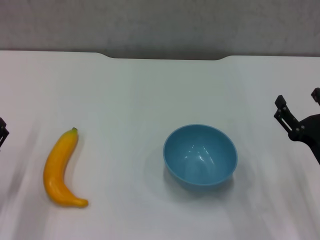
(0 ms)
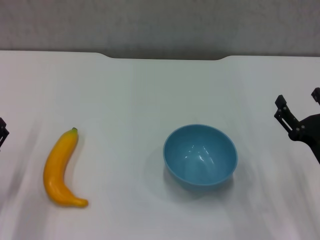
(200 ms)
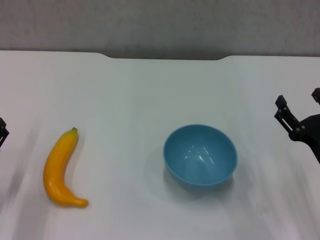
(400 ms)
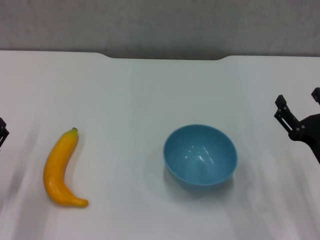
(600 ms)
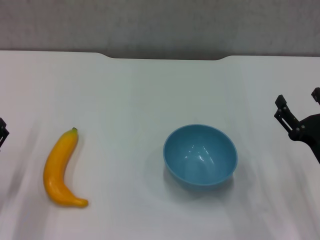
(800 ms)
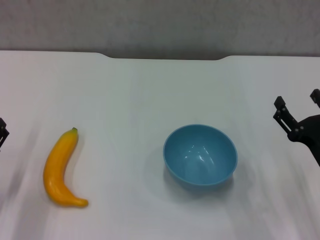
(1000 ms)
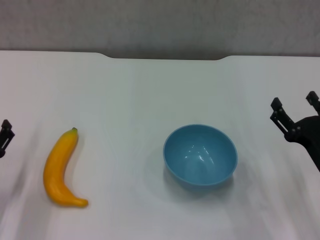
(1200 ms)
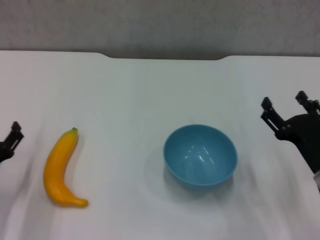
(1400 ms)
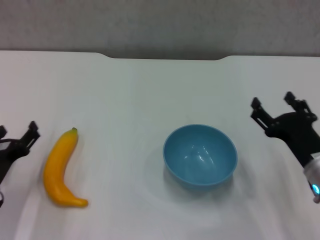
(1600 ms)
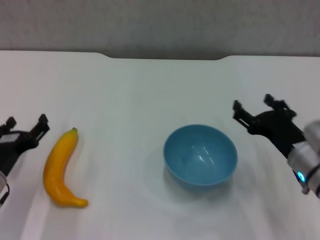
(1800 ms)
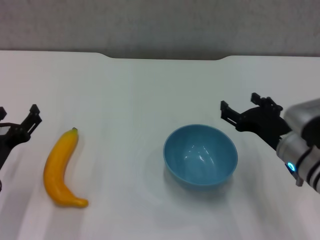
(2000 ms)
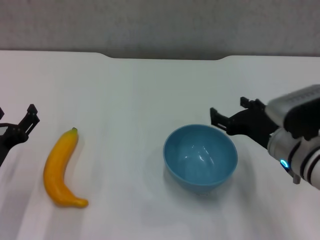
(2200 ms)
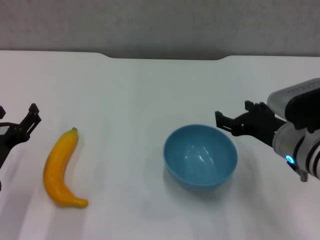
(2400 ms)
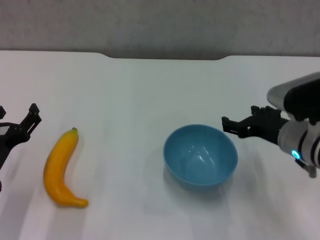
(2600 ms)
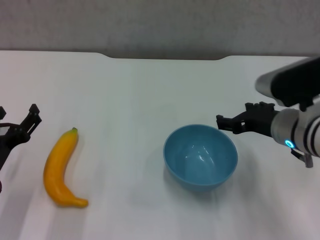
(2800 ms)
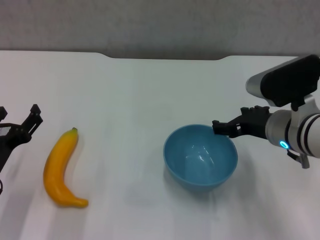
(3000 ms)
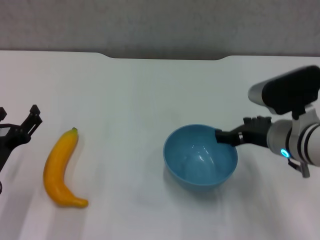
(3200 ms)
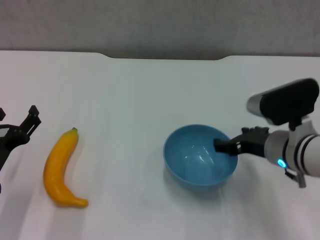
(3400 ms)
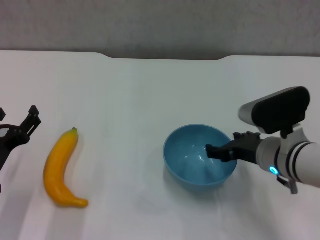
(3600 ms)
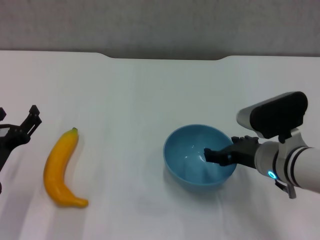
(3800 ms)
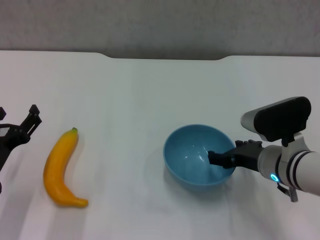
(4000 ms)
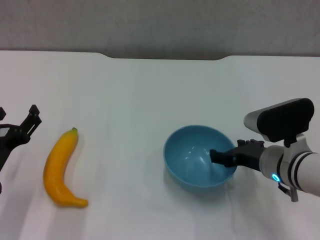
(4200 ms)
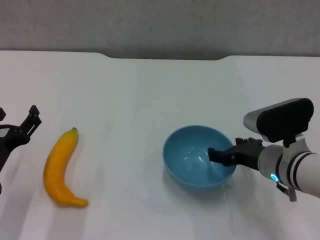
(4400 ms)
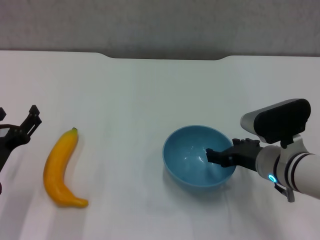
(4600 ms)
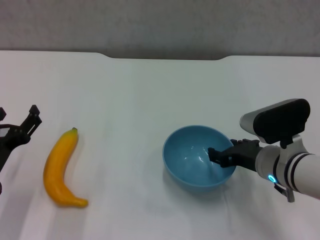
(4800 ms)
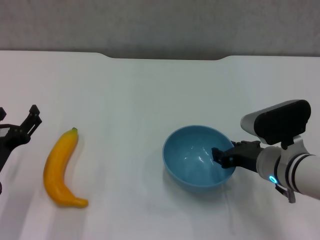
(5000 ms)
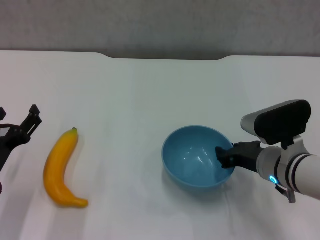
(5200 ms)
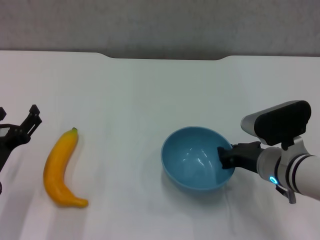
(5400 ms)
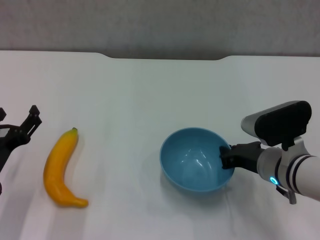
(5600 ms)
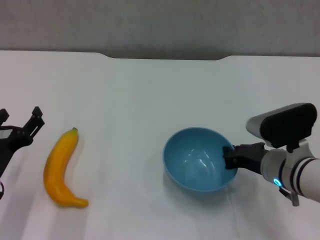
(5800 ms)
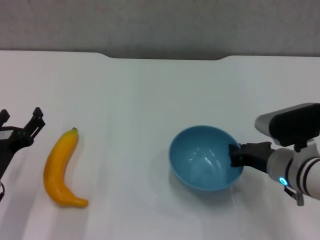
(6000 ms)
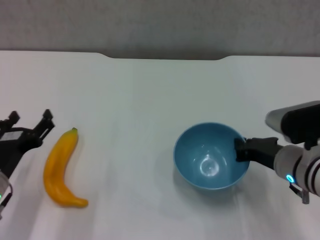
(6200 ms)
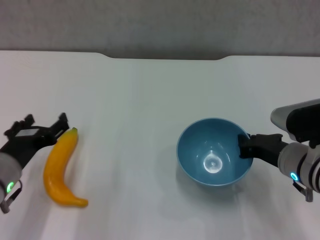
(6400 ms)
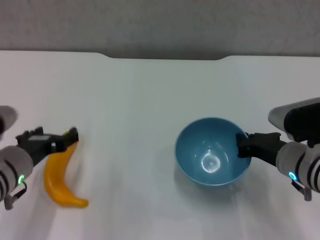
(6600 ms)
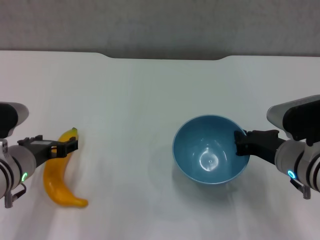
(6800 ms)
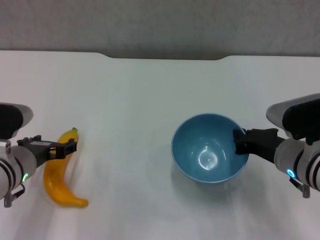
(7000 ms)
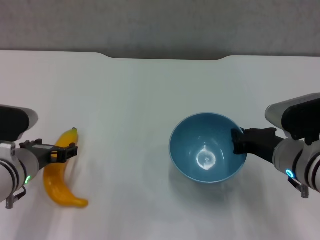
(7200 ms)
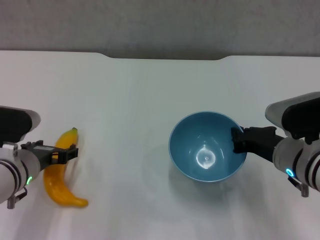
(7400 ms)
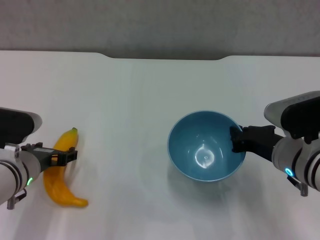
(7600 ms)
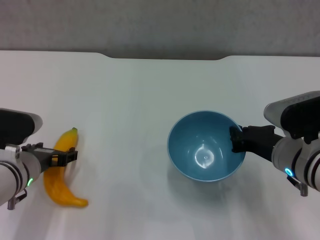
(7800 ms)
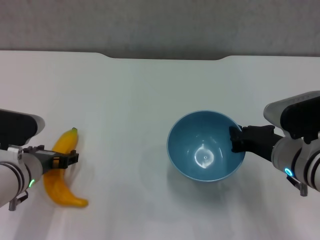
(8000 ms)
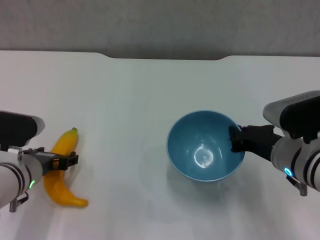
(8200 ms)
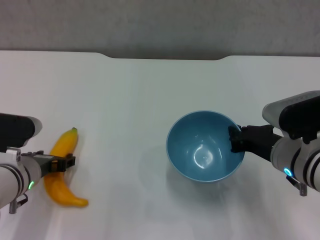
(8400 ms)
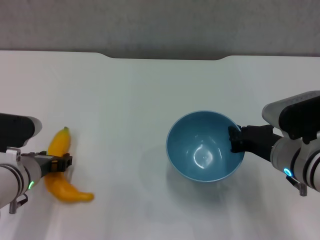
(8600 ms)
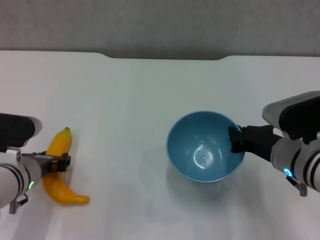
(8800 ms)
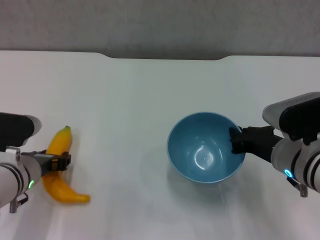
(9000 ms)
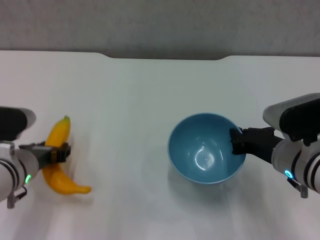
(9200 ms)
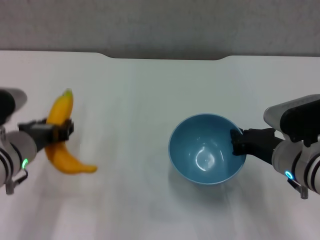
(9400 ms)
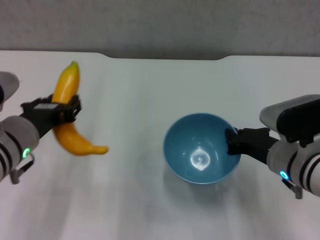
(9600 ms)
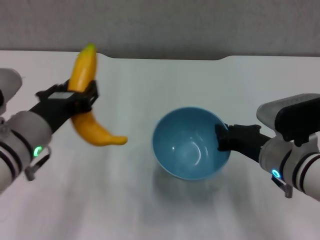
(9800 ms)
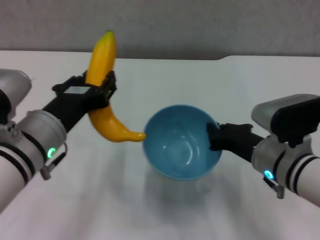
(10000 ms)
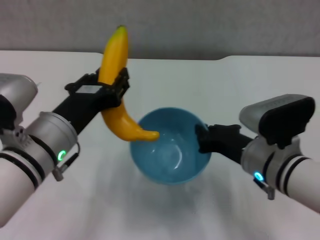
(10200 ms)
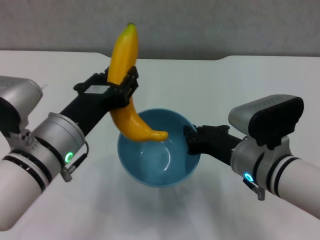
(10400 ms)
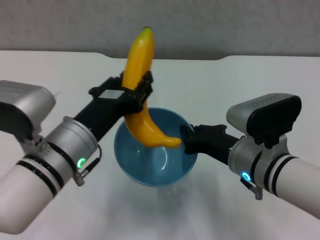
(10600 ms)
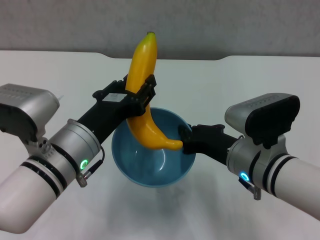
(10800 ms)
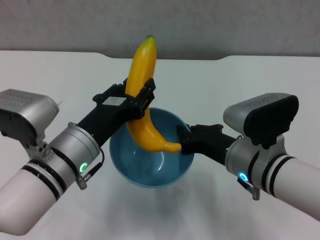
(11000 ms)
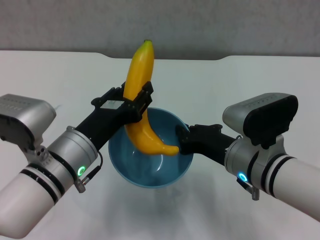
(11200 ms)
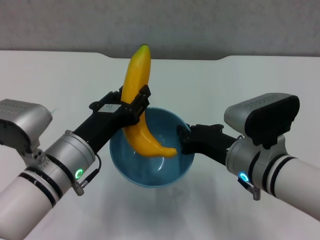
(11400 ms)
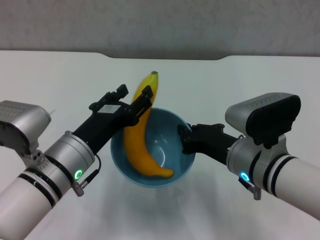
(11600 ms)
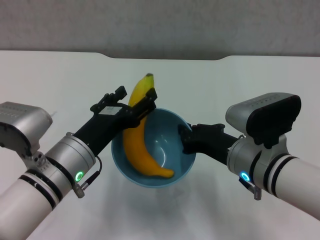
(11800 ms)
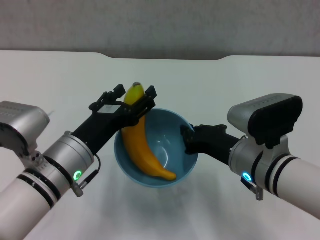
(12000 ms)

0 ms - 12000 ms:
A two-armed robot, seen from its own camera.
Step, 0 ms - 5600 ms: Grasp the blue bowl with right gripper.
Step, 5800 ms - 6600 ms: Lift the blue bowl with right gripper.
Step, 7000 ms - 8800 ms: Grasp the banana with left gripper.
0 ms - 1600 ms: The grippers make only small movements.
1600 ms - 3000 ms: The right gripper moves upward, forward and to the left, roughly 10 cm.
3000 ms - 4400 ms: The right gripper moves downward, roughly 5 cm.
4400 ms - 6000 ms: The right gripper closes.
6000 ms - 7600 ms: The left gripper goes some 5 cm forward.
7600 ms - 9000 ms: The left gripper closes its fingers.
9000 ms - 10400 ms: The left gripper heads upward and to the right, covering about 10 cm, while the right gripper travels to the left by some 5 cm.
10400 ms - 12000 ms: The left gripper opens up.

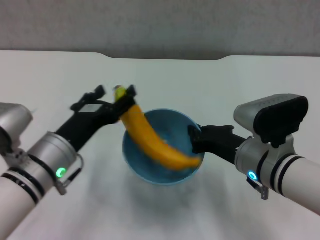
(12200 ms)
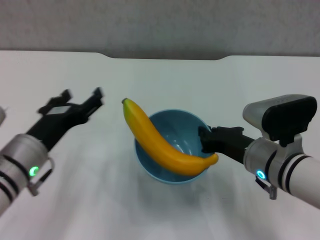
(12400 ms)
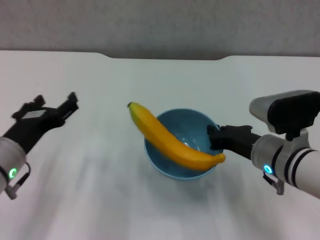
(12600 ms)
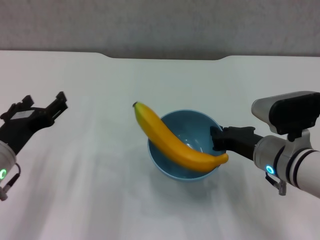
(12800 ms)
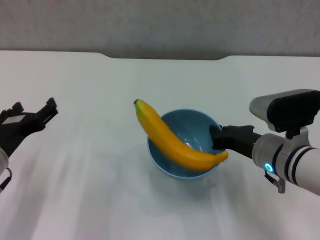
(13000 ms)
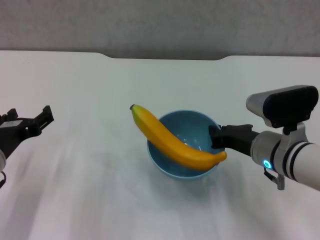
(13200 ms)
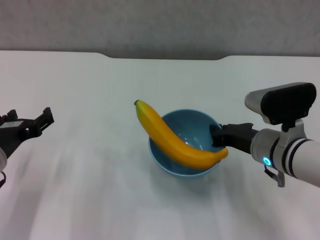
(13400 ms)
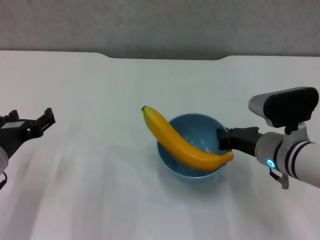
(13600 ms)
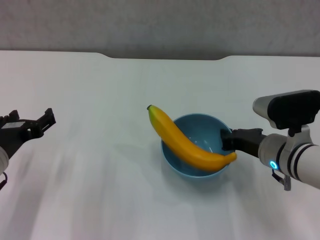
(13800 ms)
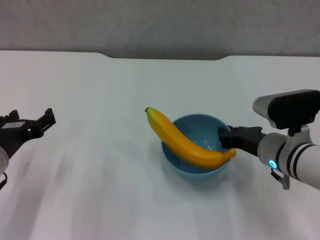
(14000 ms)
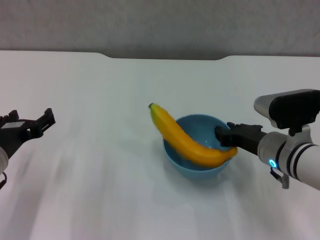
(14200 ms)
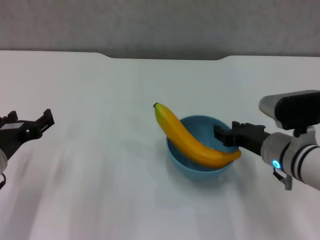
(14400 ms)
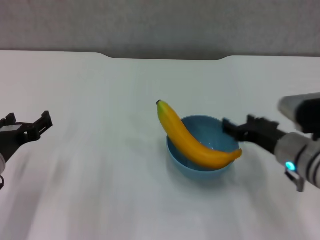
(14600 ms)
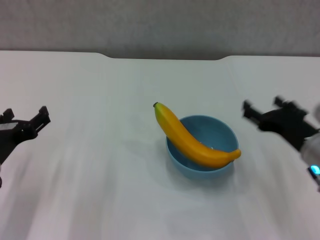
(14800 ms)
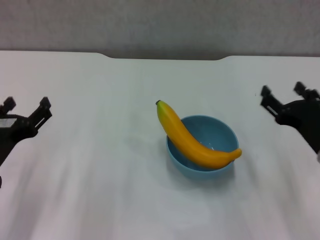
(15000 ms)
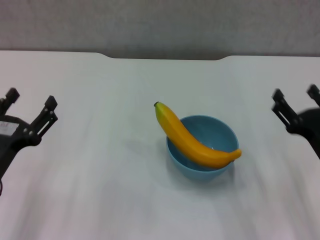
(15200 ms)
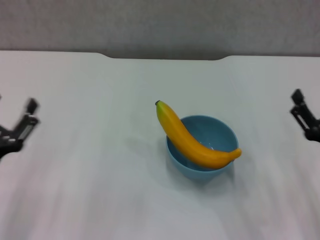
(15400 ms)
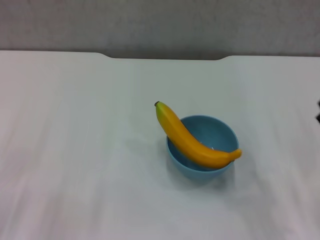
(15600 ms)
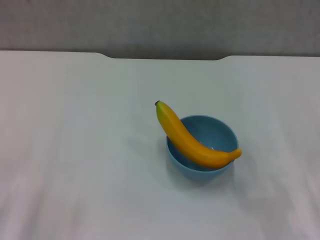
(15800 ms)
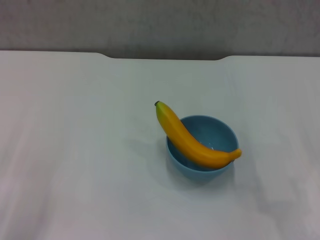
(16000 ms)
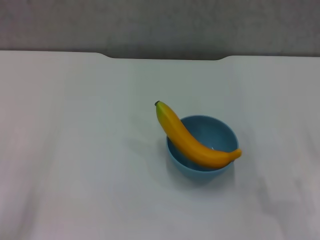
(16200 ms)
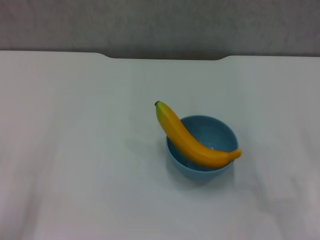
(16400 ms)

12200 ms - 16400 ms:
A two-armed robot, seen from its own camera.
Step, 12600 ms - 14600 ms: Place the bowl on the table with right gripper.
12200 ms - 13600 ms: The left gripper is displaced to the left by some 10 cm, while the right gripper changes place by about 5 cm.
13600 ms - 15000 ms: The right gripper travels backward and to the right by some 10 cm, and opens its fingers.
15000 ms - 16400 ms: The right gripper shifts roughly 10 cm to the right and backward, while the left gripper shifts approximately 10 cm to the left, downward and backward.
